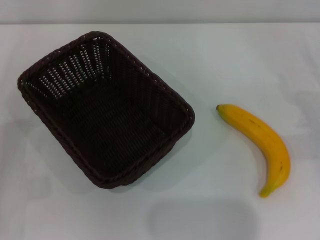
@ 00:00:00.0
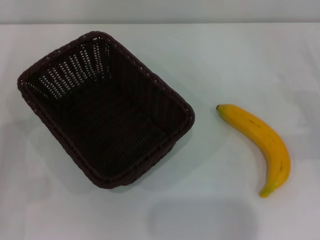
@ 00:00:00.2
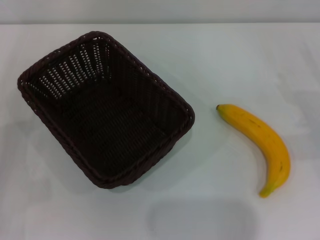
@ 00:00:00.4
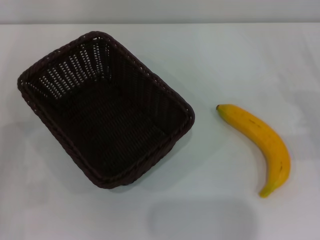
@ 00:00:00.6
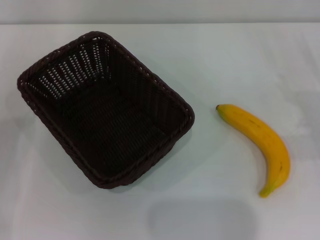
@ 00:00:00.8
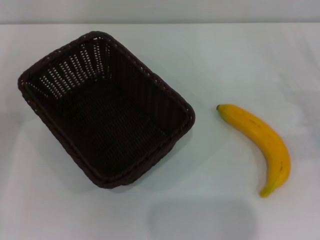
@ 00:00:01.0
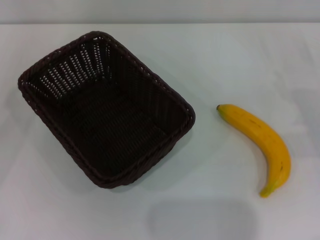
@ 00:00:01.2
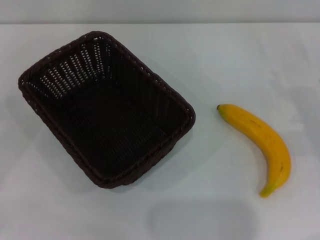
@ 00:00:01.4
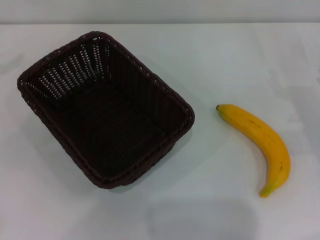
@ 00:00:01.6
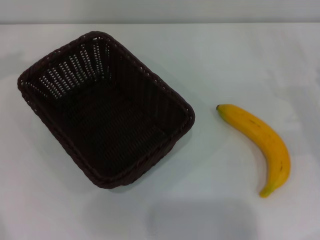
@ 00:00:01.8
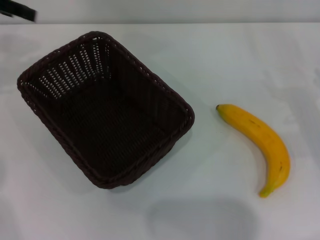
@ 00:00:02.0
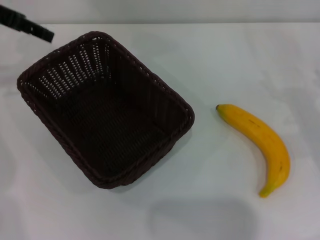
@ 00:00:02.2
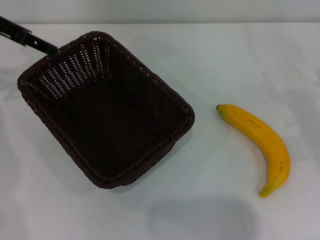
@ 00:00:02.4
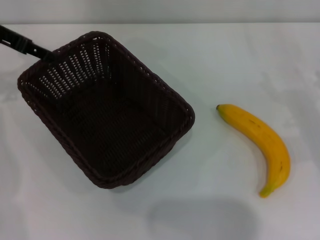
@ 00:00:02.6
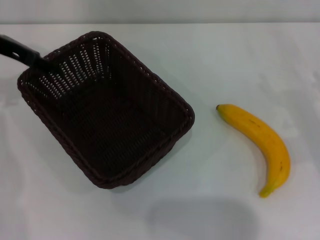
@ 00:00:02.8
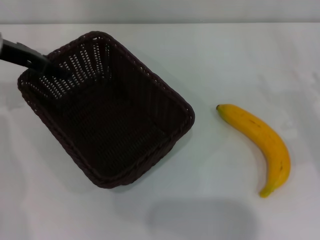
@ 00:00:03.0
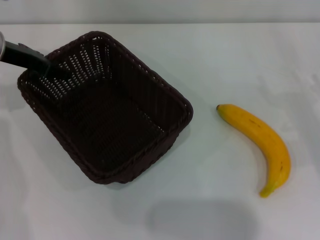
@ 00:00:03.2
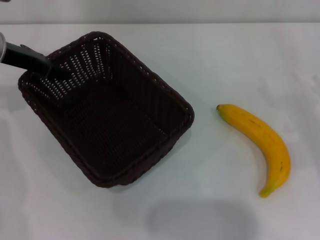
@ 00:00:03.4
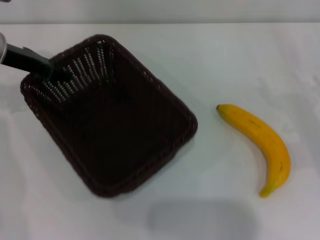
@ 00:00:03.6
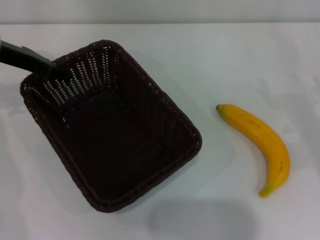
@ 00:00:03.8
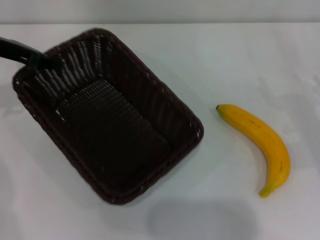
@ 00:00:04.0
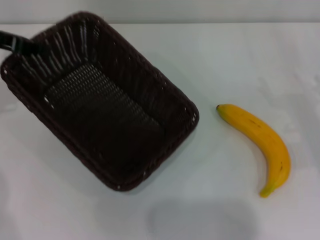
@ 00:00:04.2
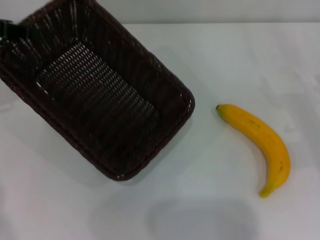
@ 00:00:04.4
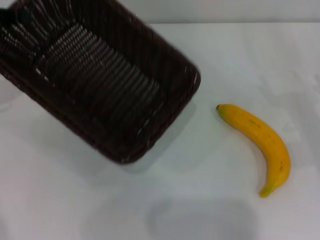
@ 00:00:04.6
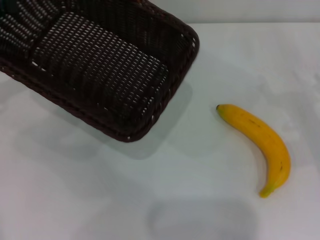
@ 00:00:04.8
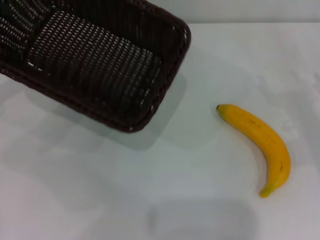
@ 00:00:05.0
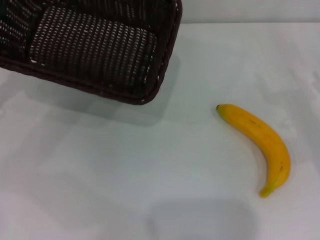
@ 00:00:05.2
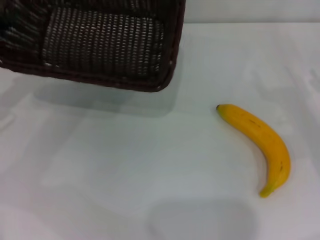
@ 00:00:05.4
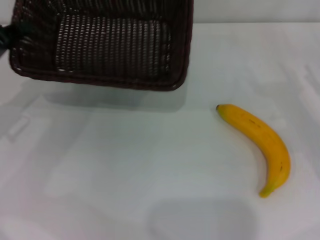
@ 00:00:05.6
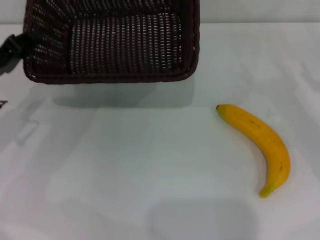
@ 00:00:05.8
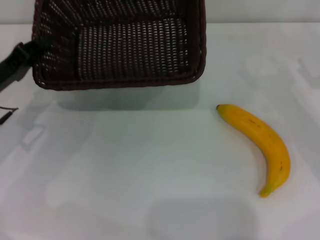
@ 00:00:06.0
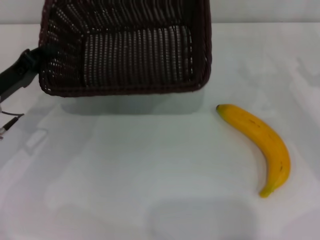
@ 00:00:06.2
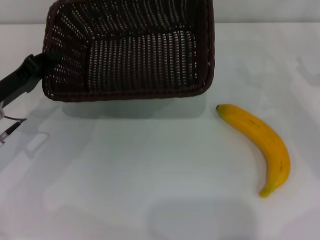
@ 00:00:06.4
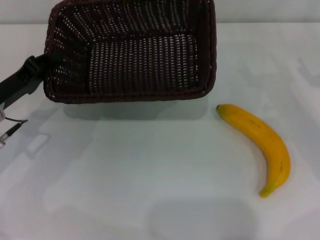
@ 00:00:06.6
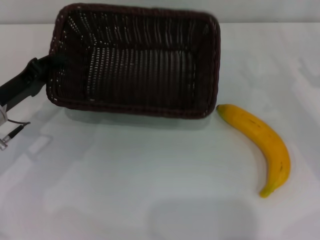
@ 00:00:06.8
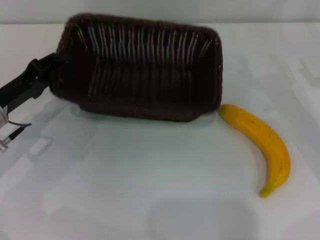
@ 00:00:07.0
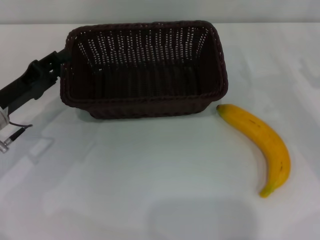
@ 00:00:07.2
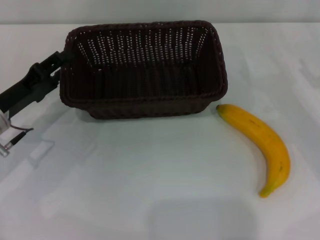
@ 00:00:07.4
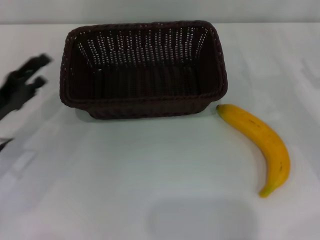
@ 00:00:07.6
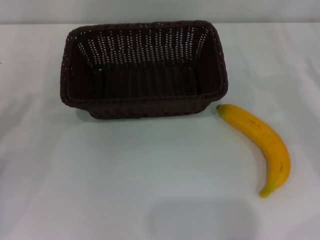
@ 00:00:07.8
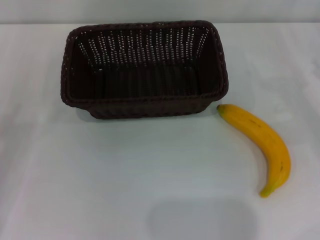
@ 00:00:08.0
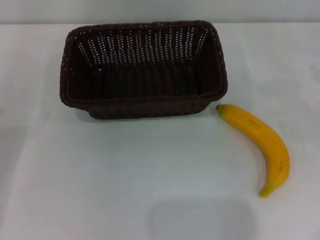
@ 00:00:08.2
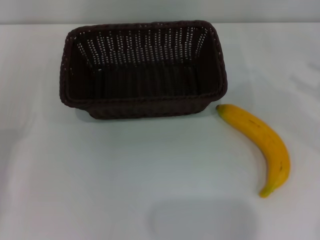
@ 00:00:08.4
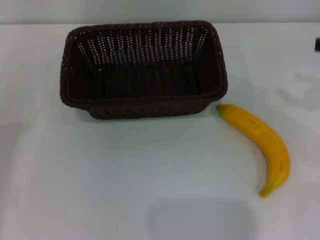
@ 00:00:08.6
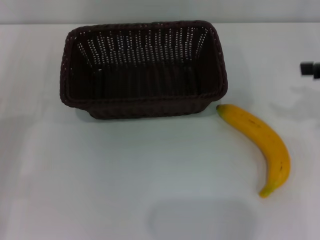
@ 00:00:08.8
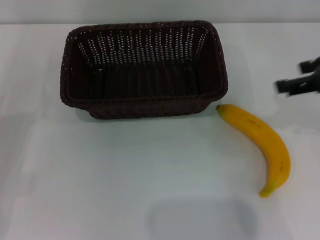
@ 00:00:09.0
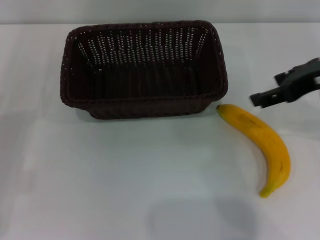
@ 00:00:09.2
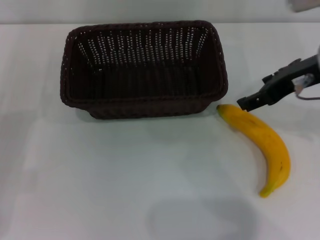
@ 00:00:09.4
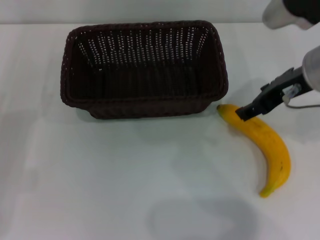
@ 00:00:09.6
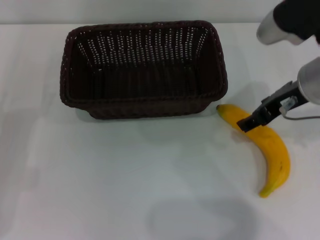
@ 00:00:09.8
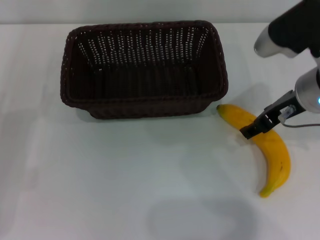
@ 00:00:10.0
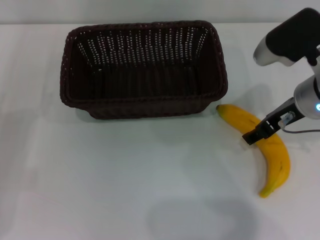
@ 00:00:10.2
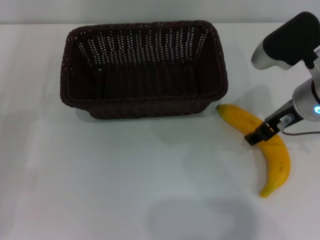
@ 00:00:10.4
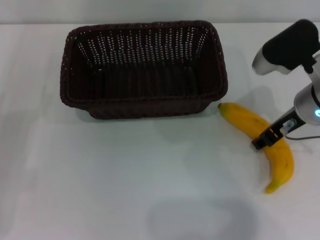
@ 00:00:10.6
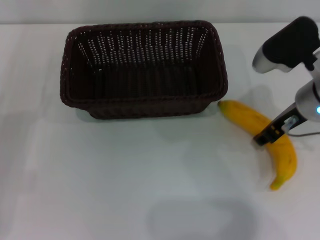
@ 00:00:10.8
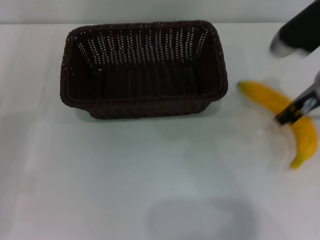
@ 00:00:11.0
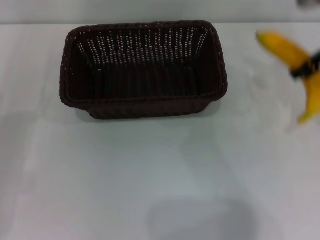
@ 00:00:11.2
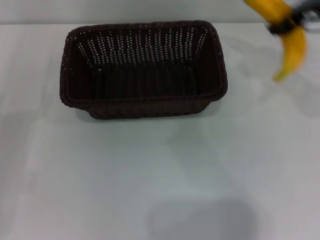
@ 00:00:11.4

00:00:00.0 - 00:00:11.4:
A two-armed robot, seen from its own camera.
Step, 00:00:00.0 - 00:00:04.0: Pick up the dark basket with the left gripper.
Step, 00:00:04.2 - 00:00:07.4: Place the dark basket in the center of view with the left gripper.
Step, 00:00:07.6 - 00:00:11.0: Pick up the banana with the right gripper.
00:00:01.4 - 00:00:02.8: The left gripper is displaced to the right and forward by about 20 cm.
00:00:02.8 - 00:00:04.2: The left gripper moves some 5 cm, and closes up.
00:00:04.2 - 00:00:05.6: The left gripper is displaced downward and backward by roughly 10 cm.
00:00:05.6 - 00:00:07.2: The left gripper heads downward, covering about 5 cm.
00:00:07.2 - 00:00:08.6: The left gripper heads to the left and backward, covering approximately 15 cm, and opens.
00:00:08.6 - 00:00:10.0: The right gripper moves to the left, approximately 20 cm.
00:00:10.0 - 00:00:11.4: The right gripper moves upward and forward, roughly 10 cm, and closes.

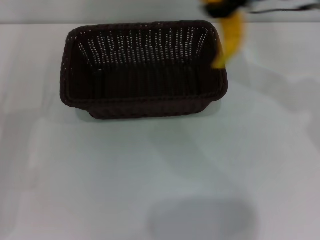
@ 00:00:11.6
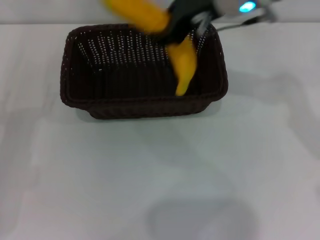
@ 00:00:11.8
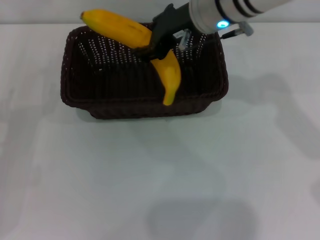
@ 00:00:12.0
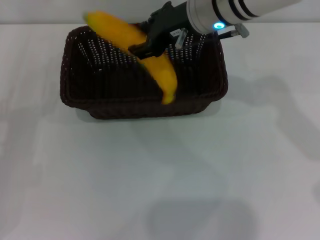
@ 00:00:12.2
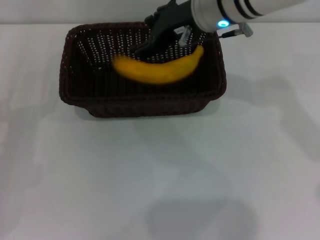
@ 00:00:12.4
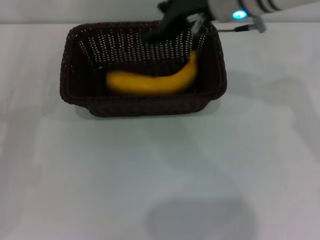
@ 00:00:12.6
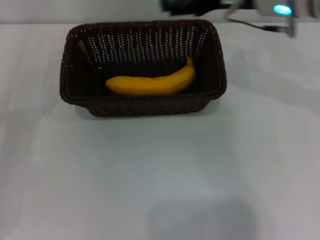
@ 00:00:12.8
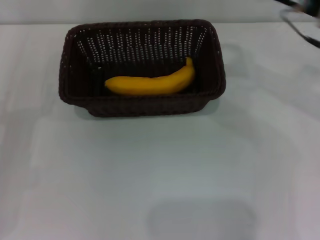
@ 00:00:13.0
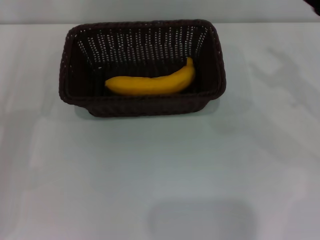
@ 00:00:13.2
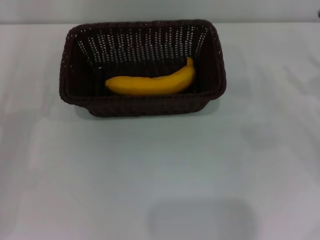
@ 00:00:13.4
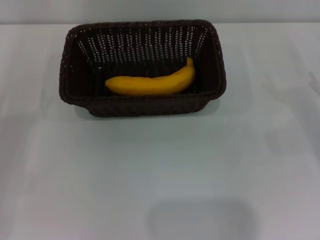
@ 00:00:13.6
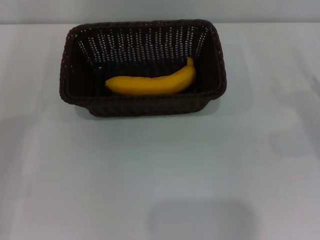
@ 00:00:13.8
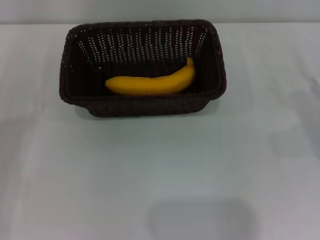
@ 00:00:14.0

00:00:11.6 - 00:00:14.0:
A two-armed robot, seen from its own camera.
Step, 00:00:11.6 - 00:00:12.4: Place the banana into the dark basket with the right gripper.
00:00:11.6 - 00:00:12.8: The right gripper reaches about 10 cm to the left, then returns, and opens.
00:00:12.8 - 00:00:14.0: The right gripper goes approximately 30 cm to the right, downward and backward.
